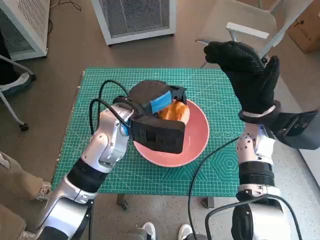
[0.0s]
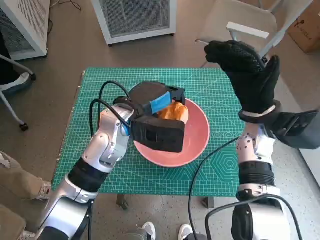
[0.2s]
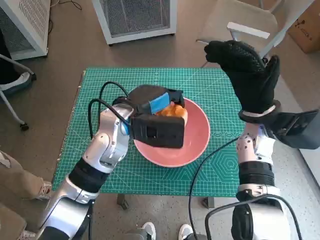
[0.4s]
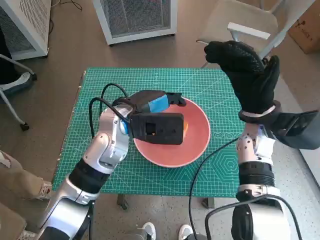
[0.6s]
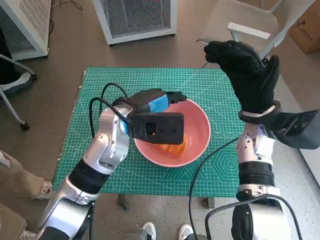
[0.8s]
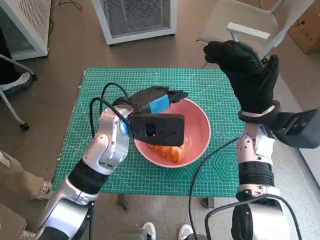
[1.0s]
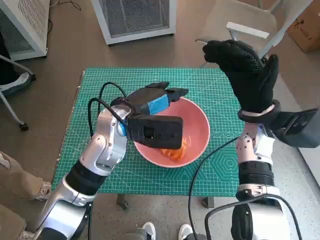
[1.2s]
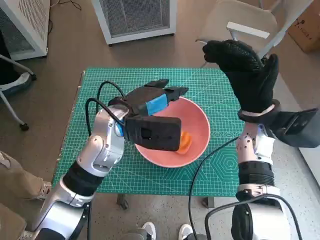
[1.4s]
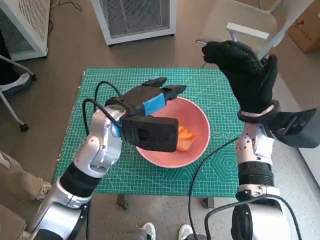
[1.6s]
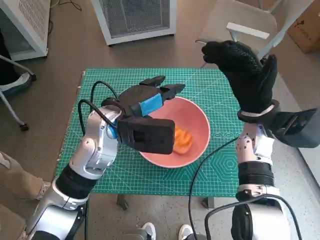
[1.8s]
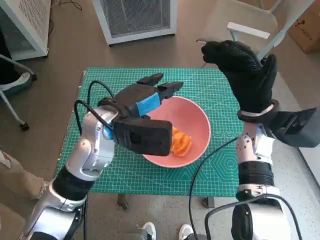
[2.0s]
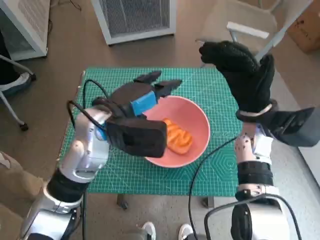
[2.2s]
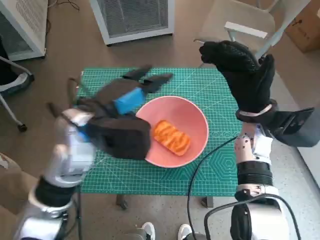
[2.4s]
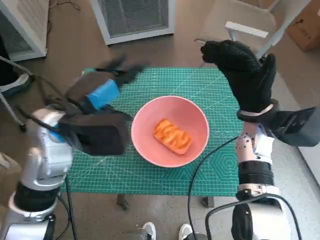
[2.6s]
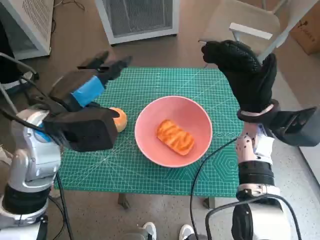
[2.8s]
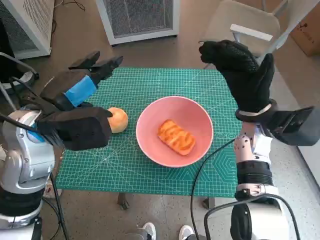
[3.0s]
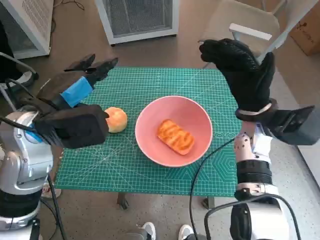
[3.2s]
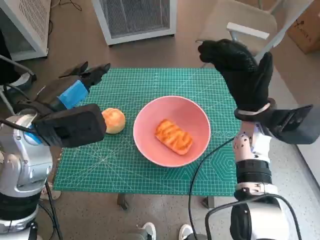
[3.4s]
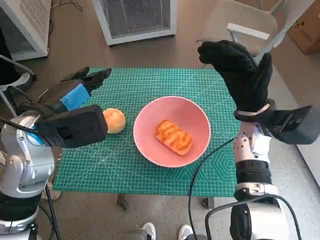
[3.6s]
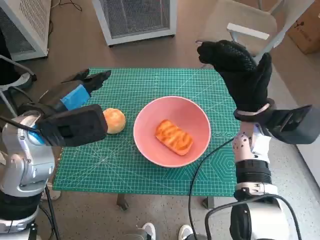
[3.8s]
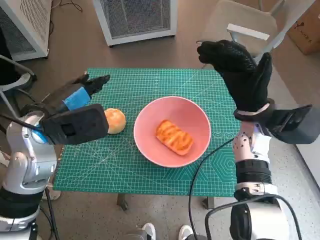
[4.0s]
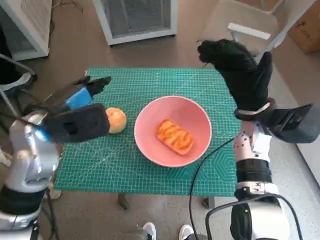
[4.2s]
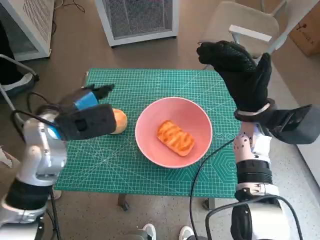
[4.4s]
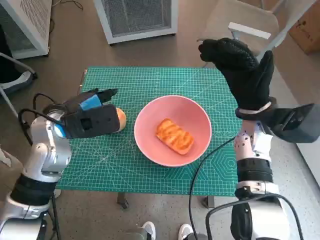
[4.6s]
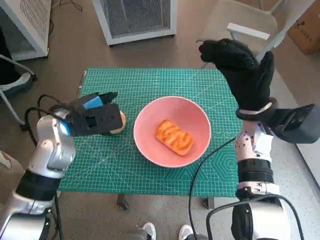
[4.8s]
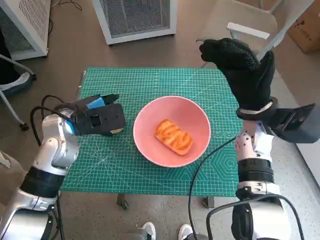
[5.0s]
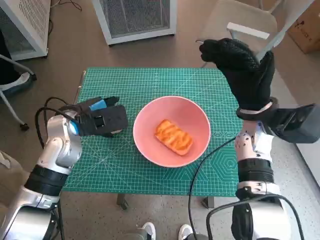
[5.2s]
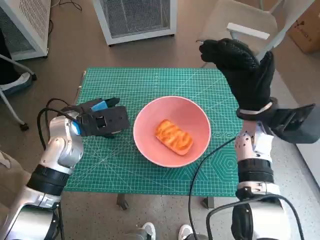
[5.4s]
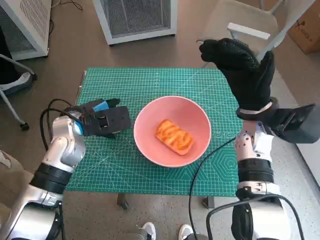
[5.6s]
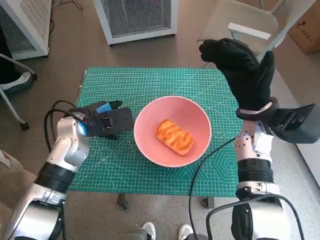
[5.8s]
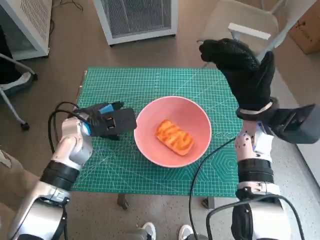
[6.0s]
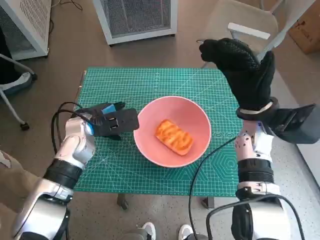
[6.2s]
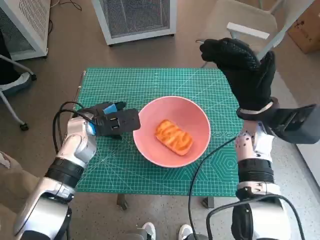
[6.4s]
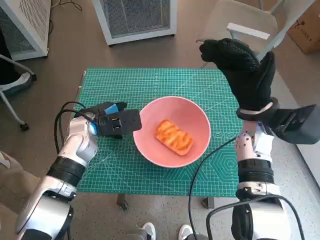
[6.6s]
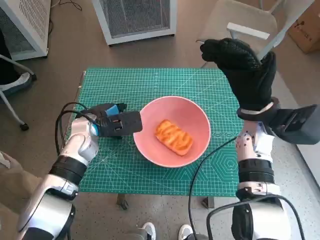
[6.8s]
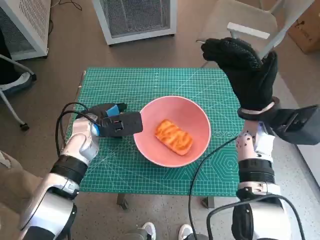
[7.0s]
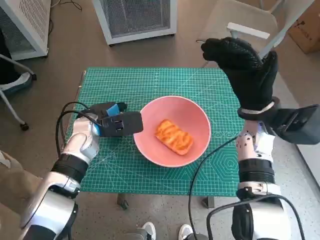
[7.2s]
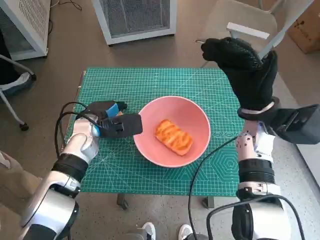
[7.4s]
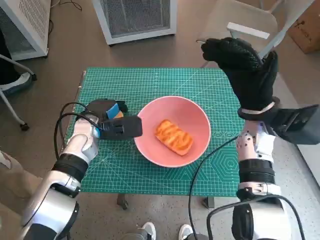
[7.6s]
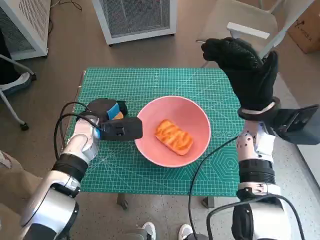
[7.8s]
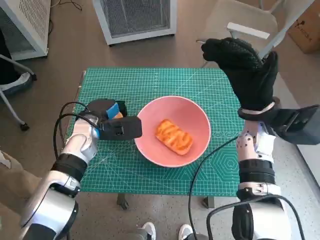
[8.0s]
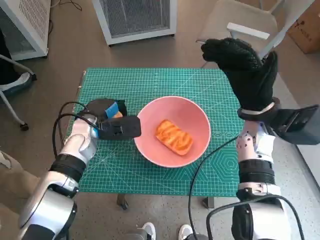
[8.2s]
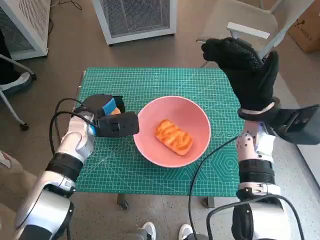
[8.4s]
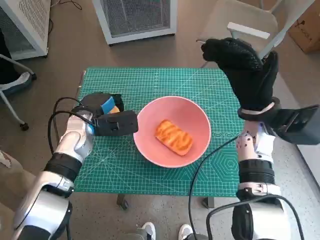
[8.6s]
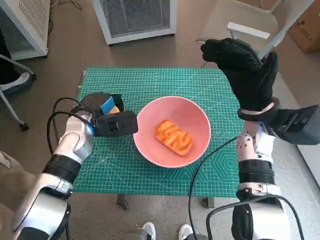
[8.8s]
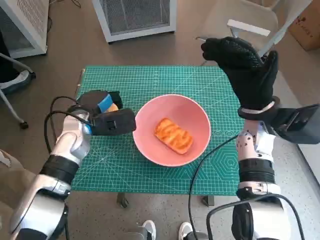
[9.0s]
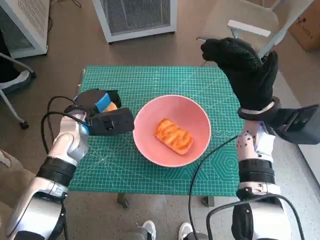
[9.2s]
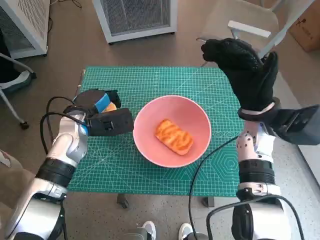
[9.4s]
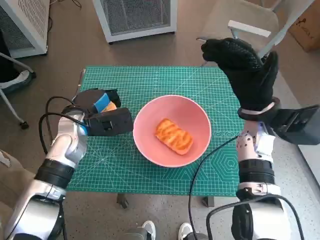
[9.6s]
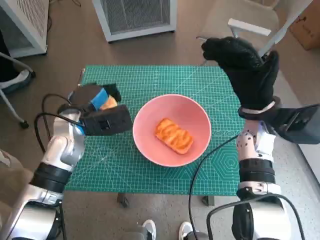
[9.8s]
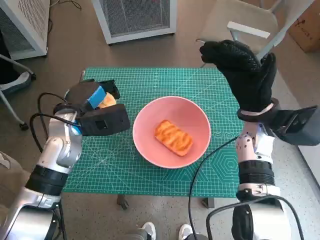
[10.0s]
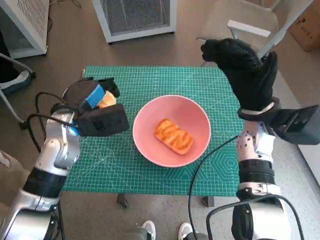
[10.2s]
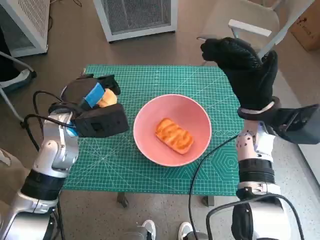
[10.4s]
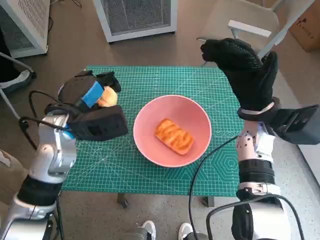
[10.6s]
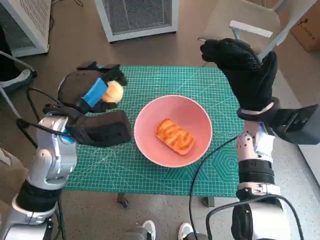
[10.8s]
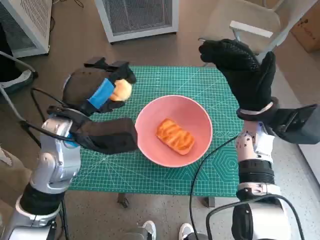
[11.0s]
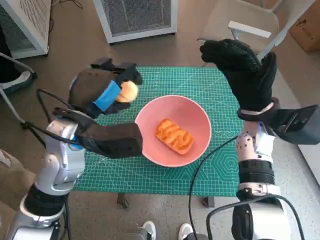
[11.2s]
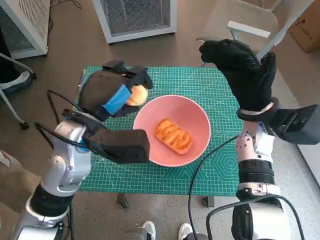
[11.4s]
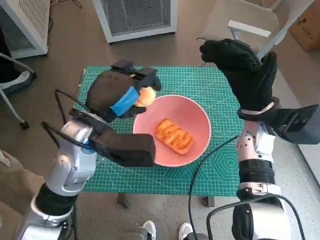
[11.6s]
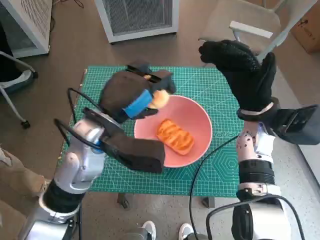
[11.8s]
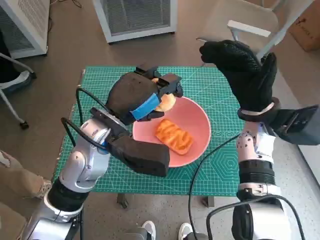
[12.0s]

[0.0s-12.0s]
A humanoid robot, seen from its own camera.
Step, 1.2s to 7.8s: Grasp the round bread with left hand.
0.0s to 1.6s: The hands stay close to where they were, moving slightly.
1.6s to 3.0s: The left hand goes about 10 cm to the left and upward.
3.0s to 4.4s: The left hand changes place by about 5 cm.
4.4s to 6.0s: The left hand heads downward, covering roughly 5 cm.
6.0s to 9.0s: The hands move only a little.
9.0s to 10.4s: The left hand changes place by some 5 cm.
10.4s to 12.0s: The left hand is displaced to the right by approximately 10 cm.

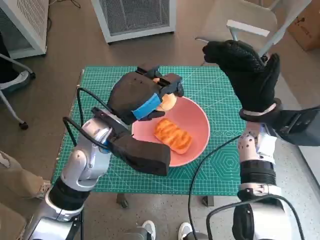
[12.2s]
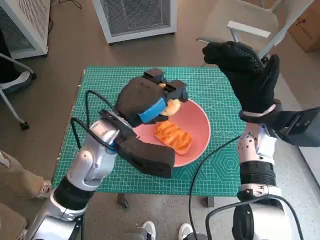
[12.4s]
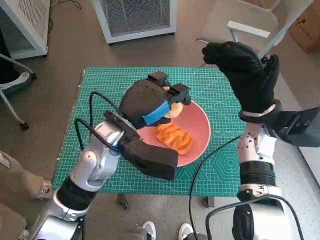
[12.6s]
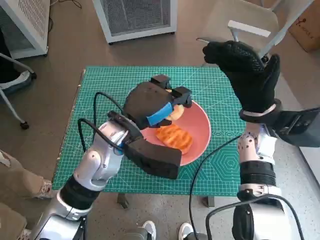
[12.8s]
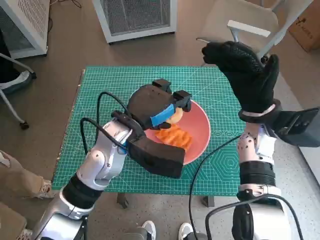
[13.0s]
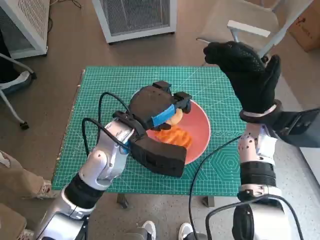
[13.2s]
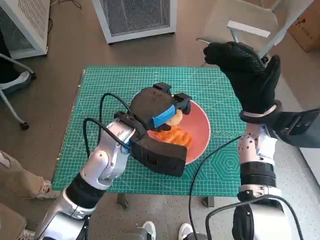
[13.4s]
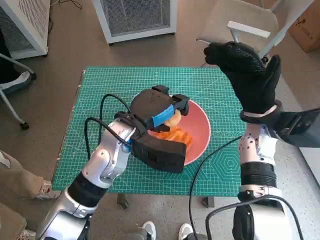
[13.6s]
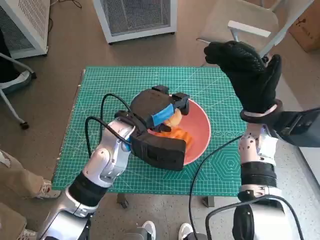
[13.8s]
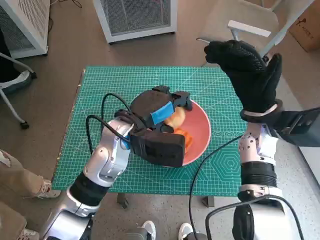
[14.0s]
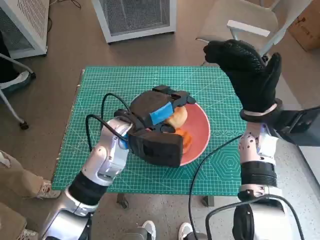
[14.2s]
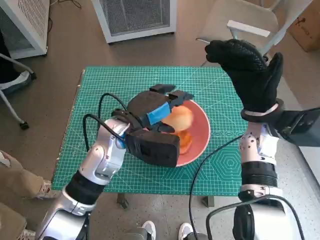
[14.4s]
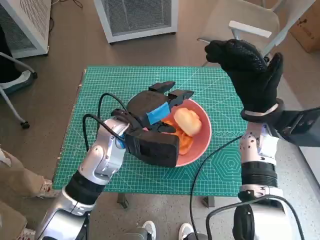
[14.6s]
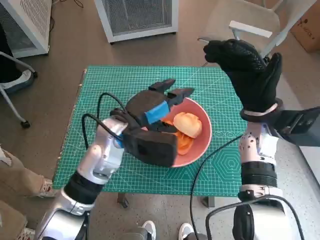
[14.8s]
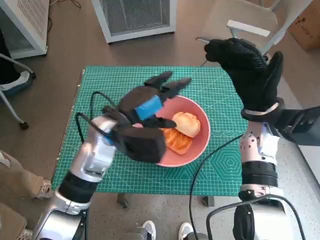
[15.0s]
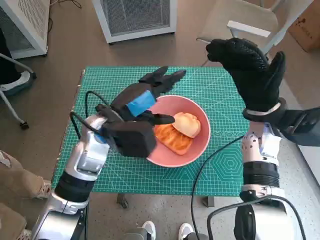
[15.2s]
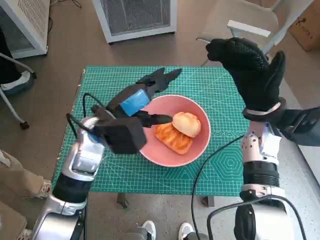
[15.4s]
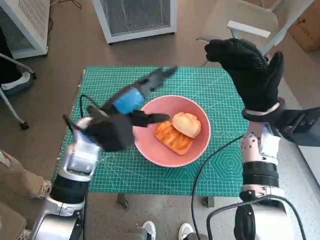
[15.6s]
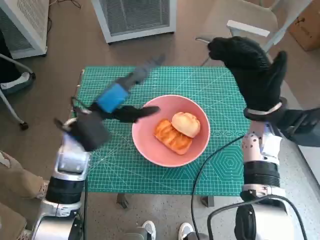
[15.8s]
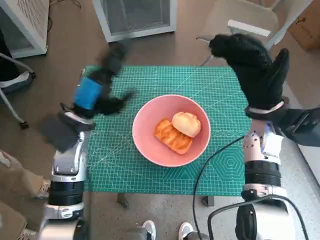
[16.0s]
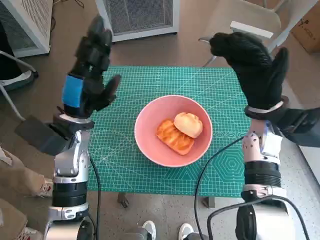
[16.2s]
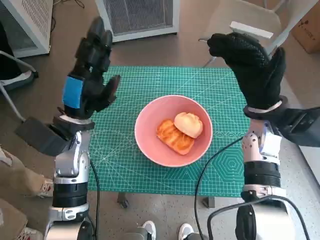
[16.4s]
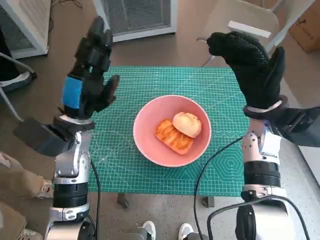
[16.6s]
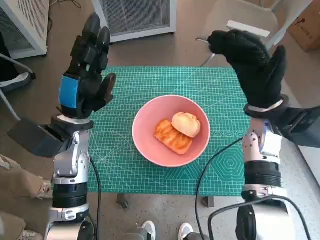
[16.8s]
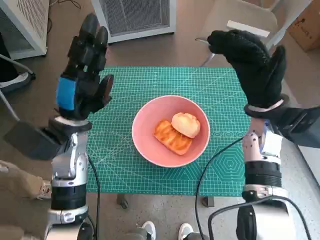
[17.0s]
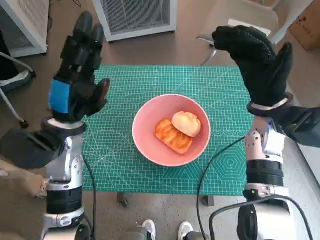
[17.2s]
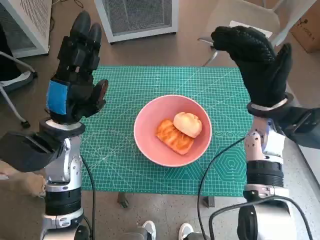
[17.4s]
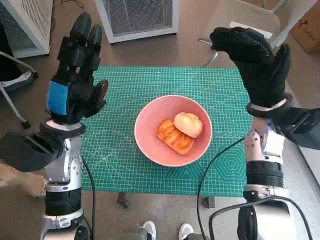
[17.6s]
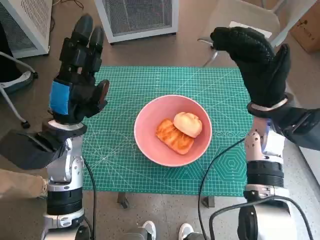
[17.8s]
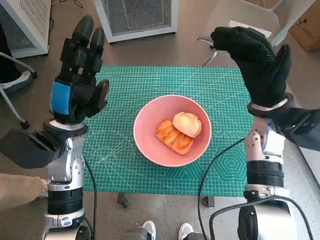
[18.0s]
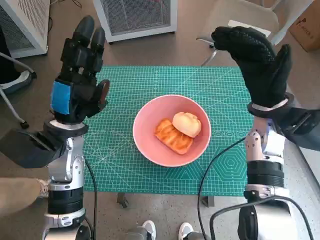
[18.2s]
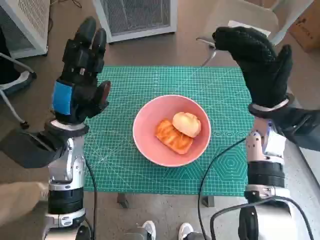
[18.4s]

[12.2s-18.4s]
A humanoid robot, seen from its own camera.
Step, 12.2s to 14.6s: Place the round bread in pink bowl with left hand.
15.4s to 16.8s: The left hand heads to the left, covering approximately 5 cm.

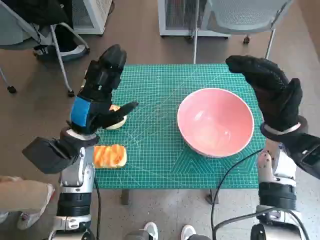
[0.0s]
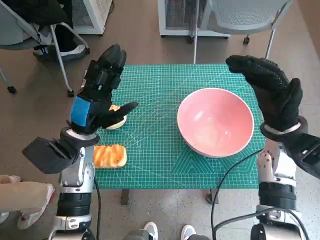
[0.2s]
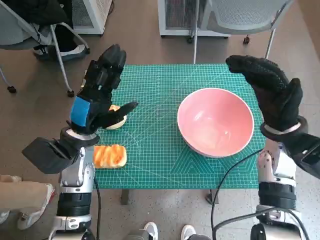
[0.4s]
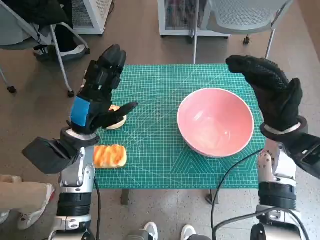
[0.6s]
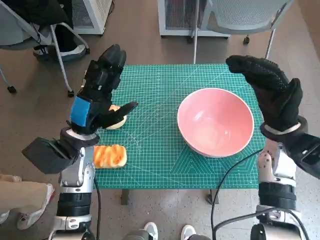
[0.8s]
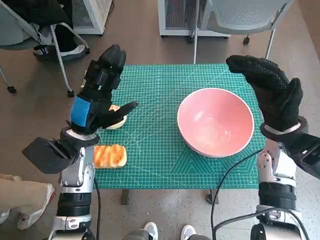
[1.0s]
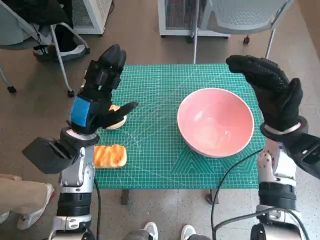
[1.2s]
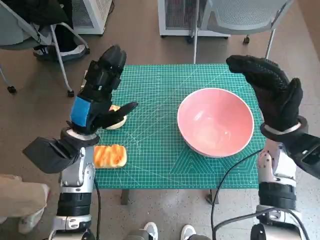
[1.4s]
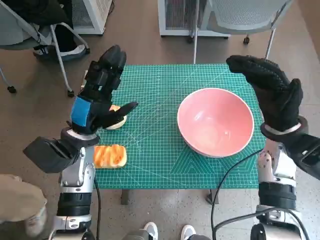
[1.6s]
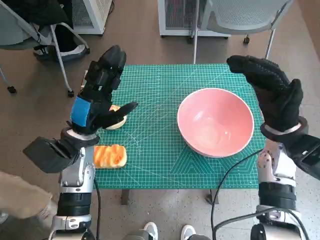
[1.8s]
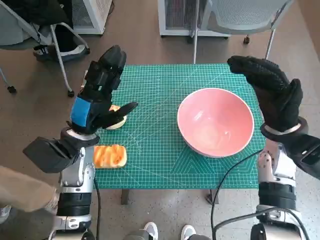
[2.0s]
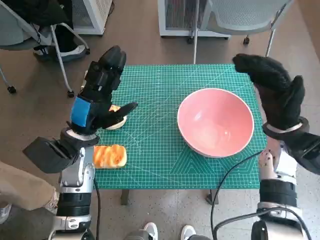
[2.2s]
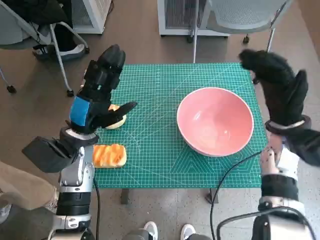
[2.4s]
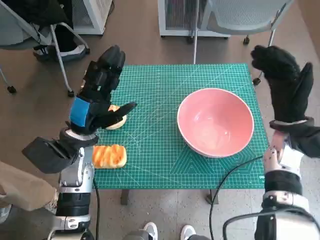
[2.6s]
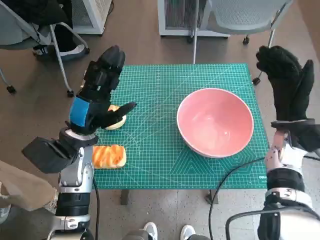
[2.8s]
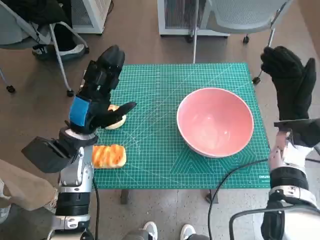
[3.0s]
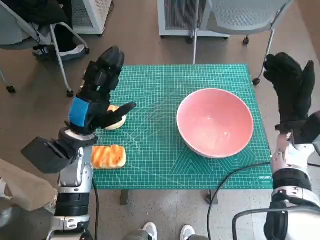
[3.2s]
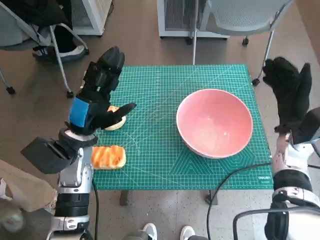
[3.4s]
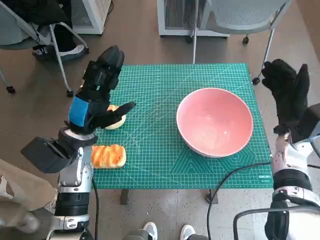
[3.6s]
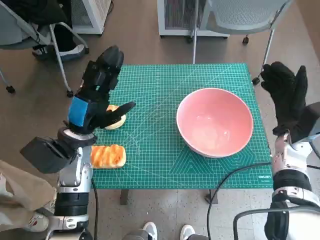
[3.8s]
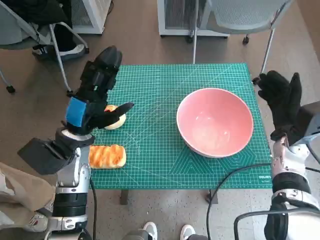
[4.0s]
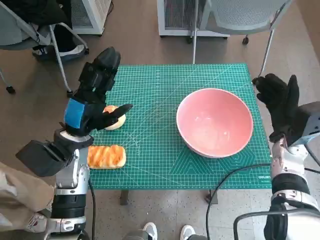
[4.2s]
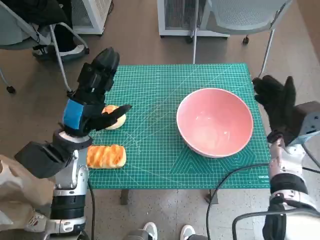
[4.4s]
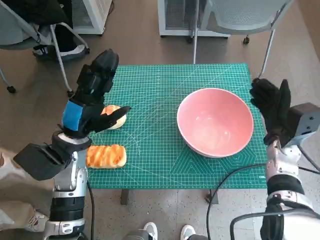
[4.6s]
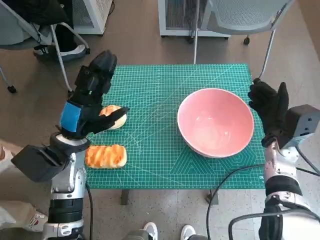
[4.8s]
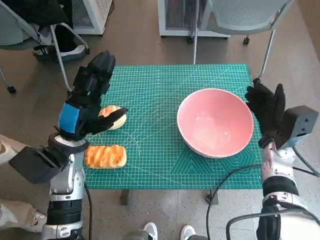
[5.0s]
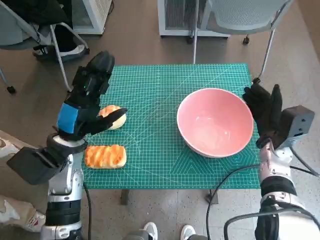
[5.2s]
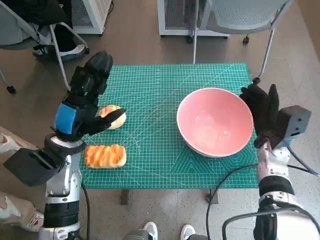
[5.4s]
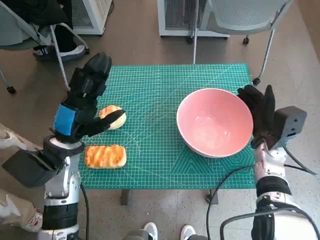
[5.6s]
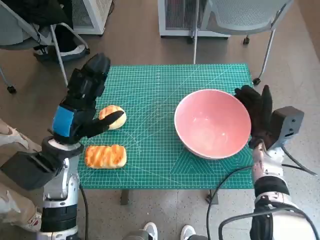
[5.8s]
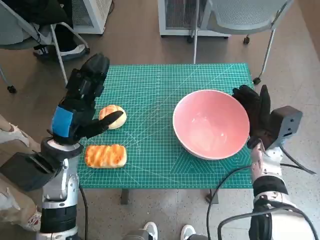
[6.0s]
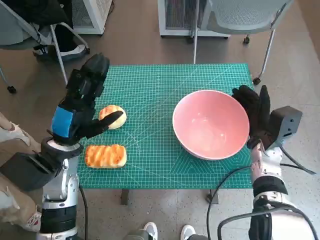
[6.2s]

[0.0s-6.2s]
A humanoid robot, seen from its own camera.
1.6s to 3.2s: The right hand moves about 5 cm.
